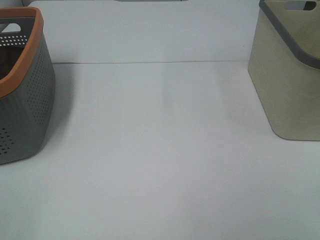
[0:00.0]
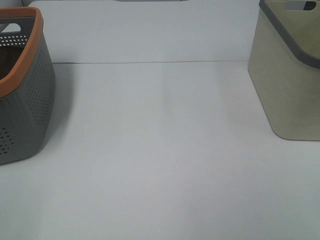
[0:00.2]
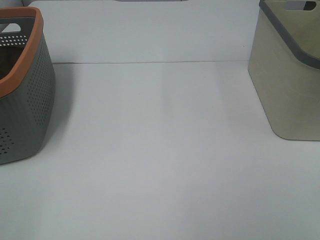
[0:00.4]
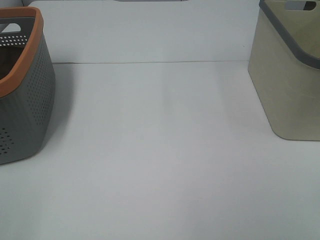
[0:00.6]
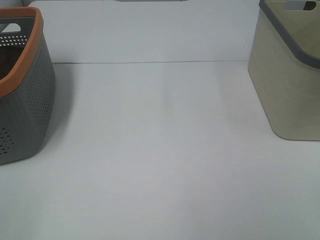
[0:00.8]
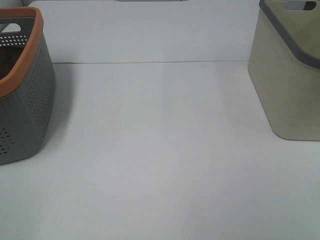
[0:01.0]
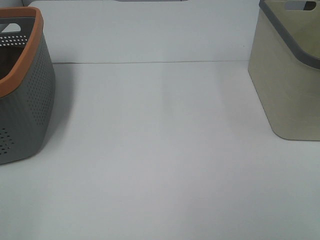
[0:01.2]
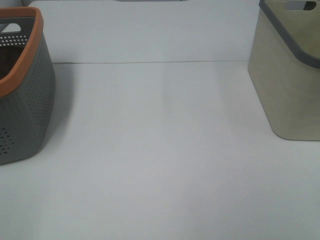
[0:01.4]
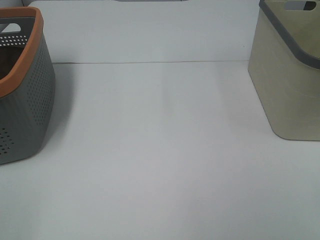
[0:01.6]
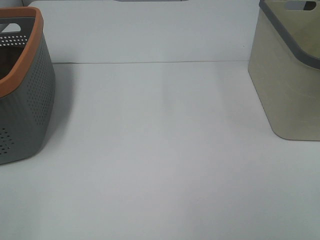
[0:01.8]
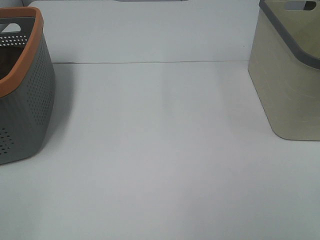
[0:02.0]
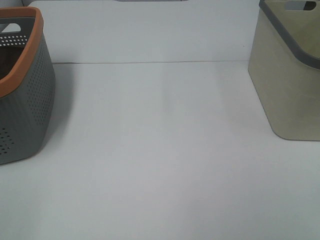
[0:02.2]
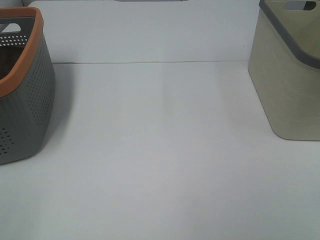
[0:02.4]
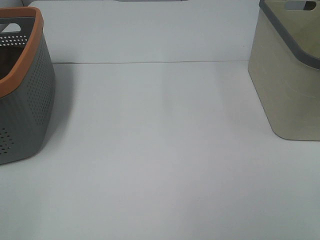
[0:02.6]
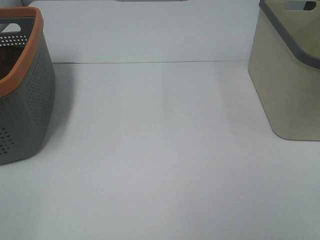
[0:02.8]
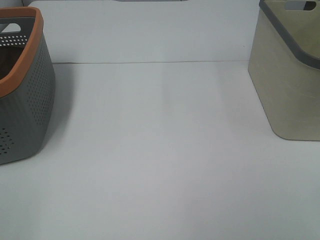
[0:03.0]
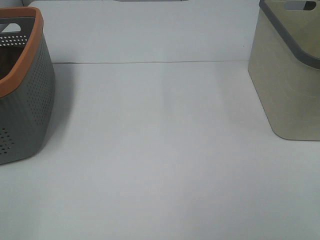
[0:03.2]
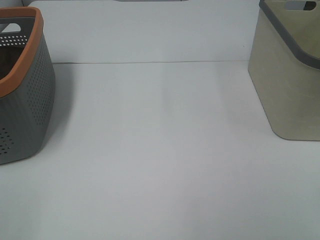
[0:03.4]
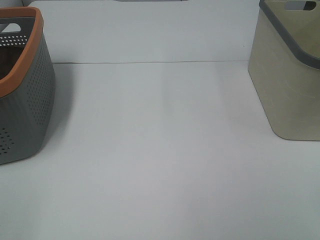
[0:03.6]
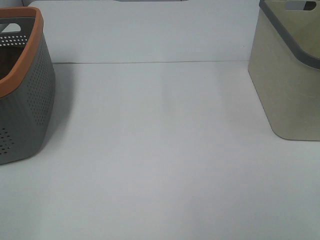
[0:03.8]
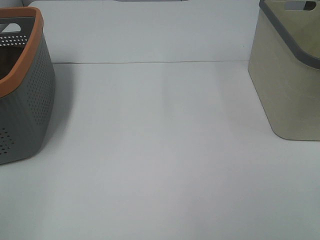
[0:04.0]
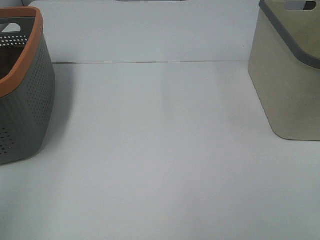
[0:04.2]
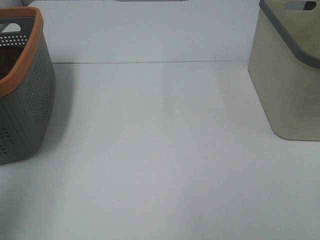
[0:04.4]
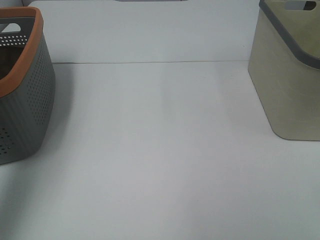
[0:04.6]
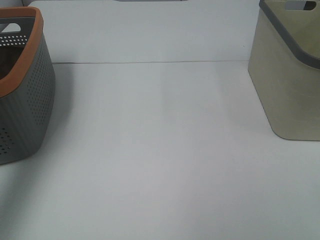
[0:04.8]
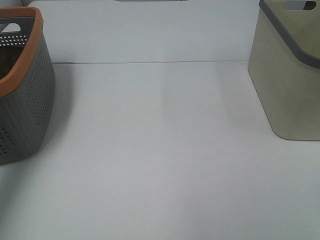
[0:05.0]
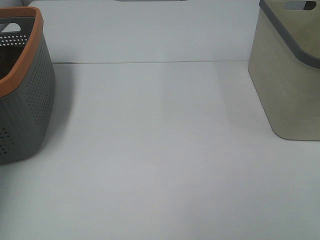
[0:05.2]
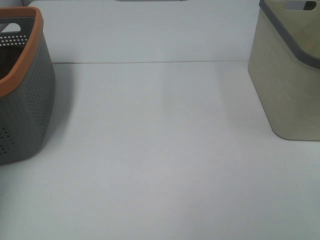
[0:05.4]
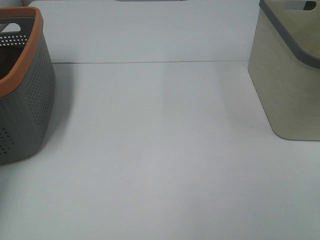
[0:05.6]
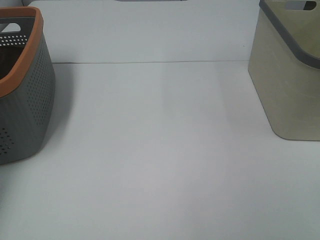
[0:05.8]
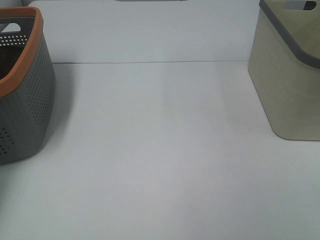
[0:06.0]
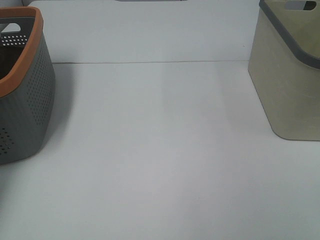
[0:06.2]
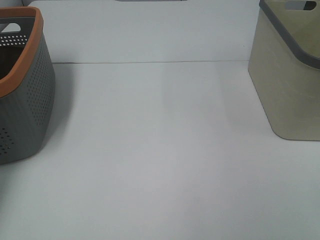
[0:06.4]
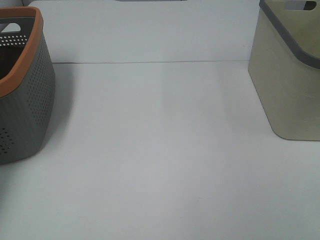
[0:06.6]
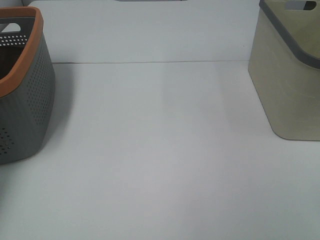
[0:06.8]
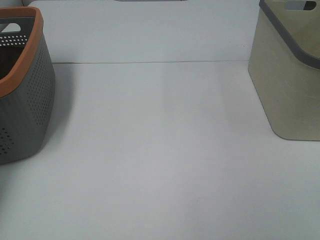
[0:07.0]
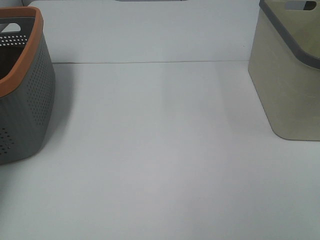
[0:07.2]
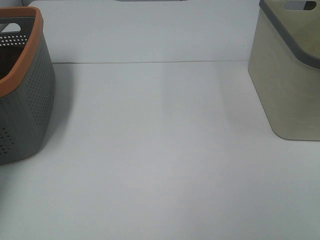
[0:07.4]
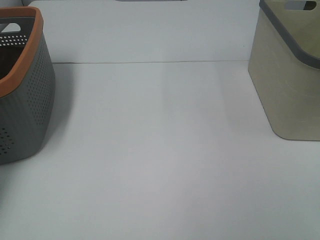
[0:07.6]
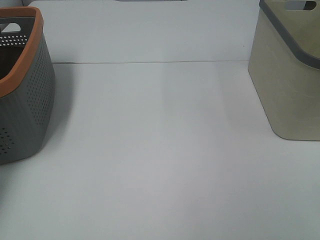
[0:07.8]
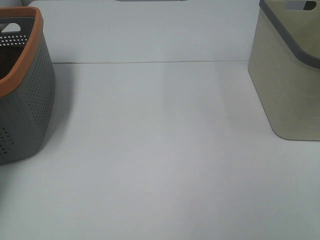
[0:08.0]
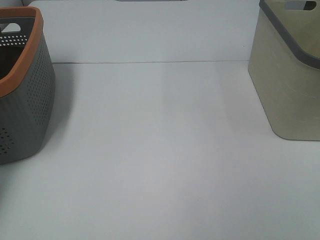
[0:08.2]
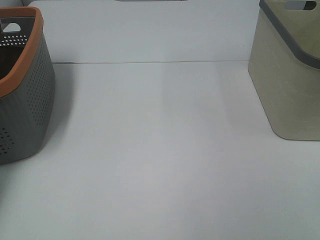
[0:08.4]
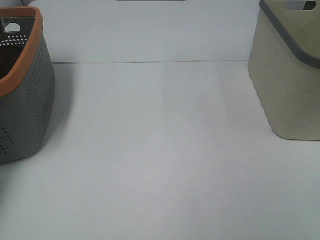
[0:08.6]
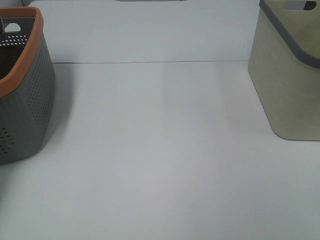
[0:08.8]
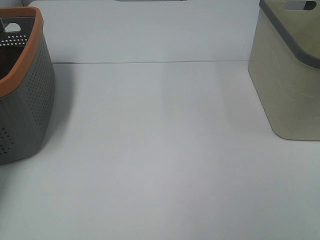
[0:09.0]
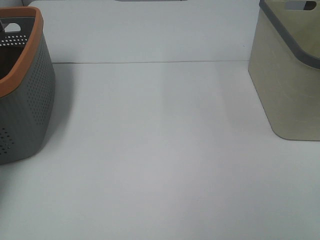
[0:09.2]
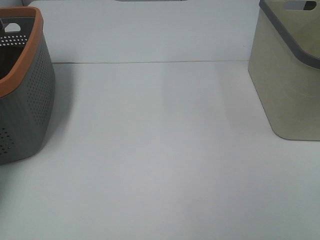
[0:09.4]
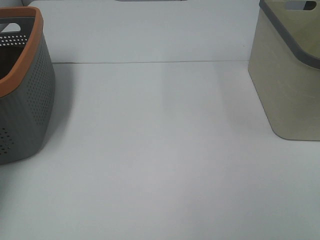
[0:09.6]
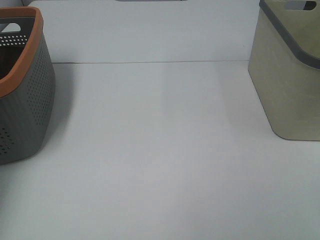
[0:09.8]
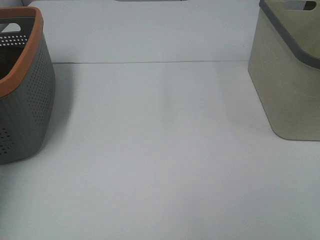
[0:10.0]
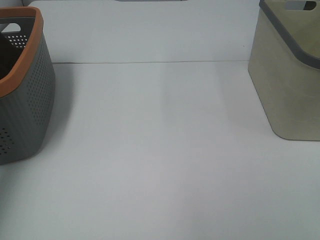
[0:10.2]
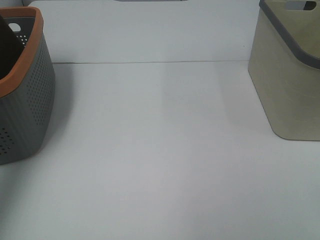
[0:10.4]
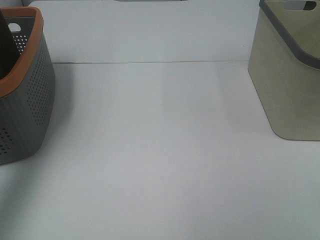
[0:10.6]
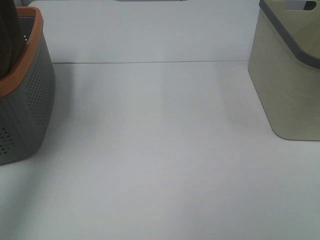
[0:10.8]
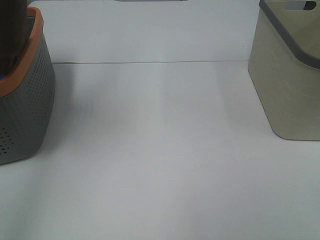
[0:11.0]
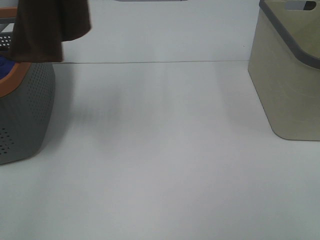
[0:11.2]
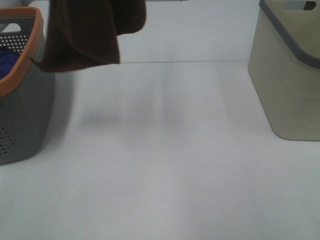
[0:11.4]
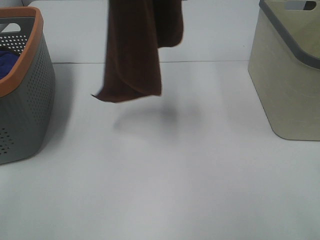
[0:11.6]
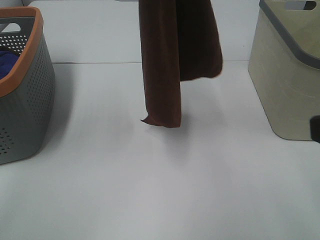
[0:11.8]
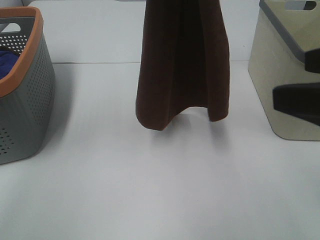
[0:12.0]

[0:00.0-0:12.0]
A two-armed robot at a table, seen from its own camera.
Task of the whole recording: Remove the towel and place it.
0:00.0 to 0:03.0: Both grippers stay put.
0:03.0 to 0:04.4: The left gripper goes some 20 cm forward and upward.
0:04.4 to 0:06.0: The left gripper heads forward and downward, covering some 35 cm.
0:09.0 to 0:10.4: The left gripper travels upward and backward by some 35 cm.
0:10.4 to 0:12.0: The right gripper travels forward by some 15 cm. Meanwhile the left gripper heads to the right, covering about 30 cm.

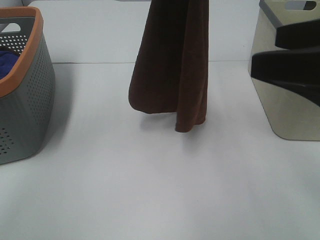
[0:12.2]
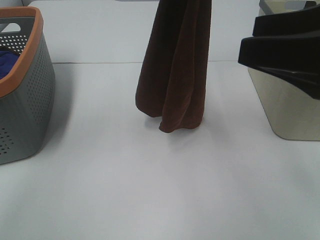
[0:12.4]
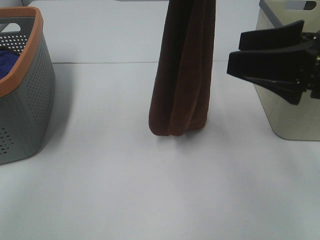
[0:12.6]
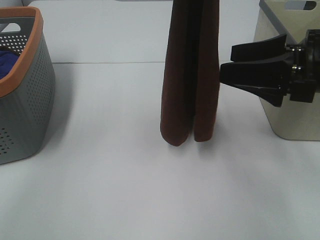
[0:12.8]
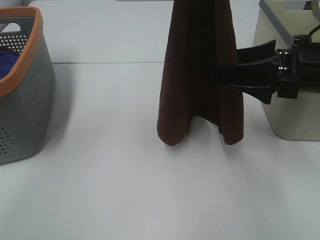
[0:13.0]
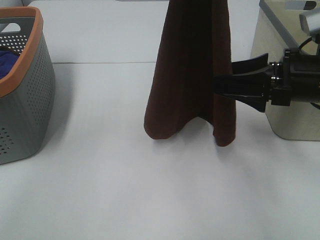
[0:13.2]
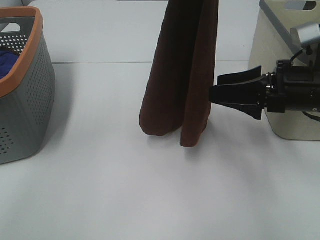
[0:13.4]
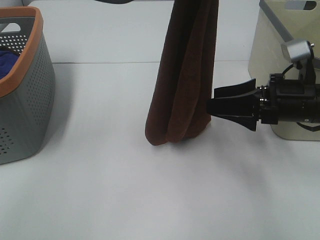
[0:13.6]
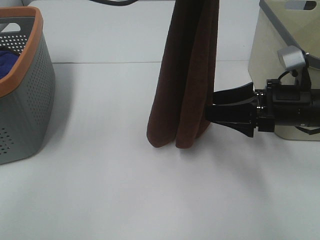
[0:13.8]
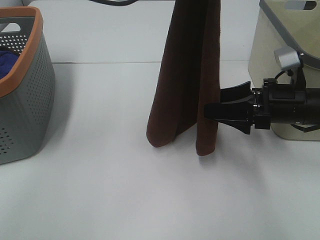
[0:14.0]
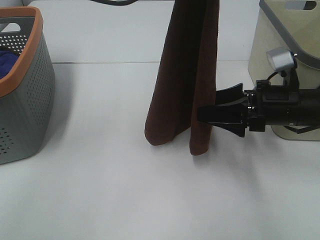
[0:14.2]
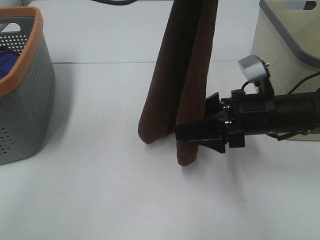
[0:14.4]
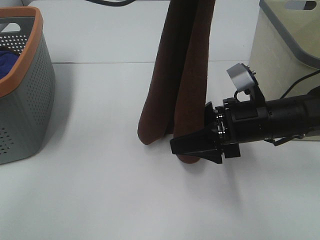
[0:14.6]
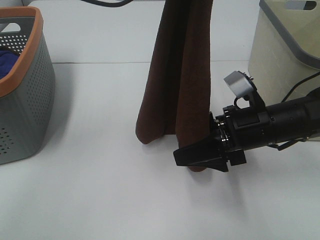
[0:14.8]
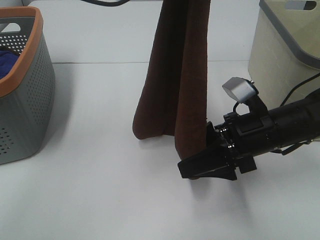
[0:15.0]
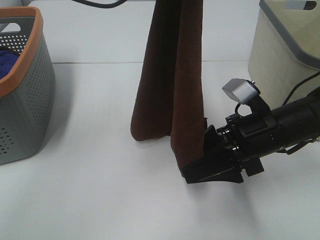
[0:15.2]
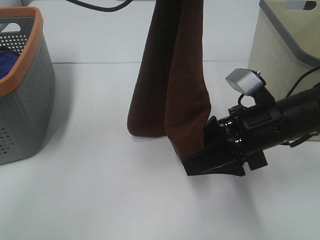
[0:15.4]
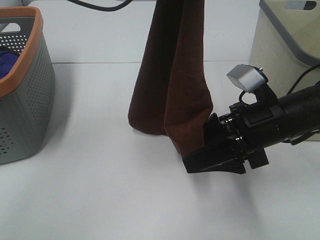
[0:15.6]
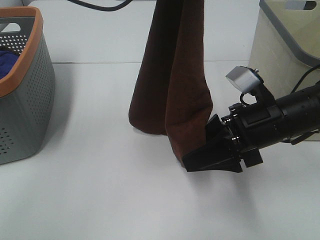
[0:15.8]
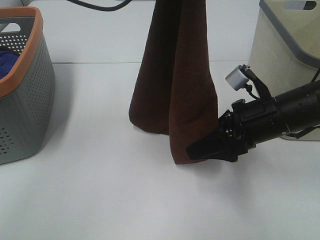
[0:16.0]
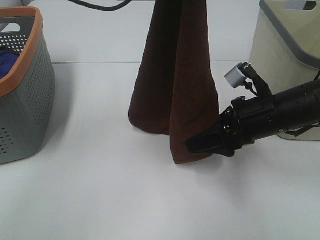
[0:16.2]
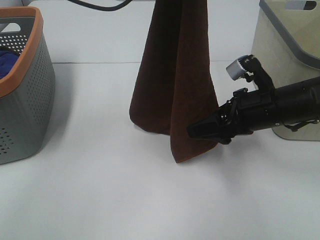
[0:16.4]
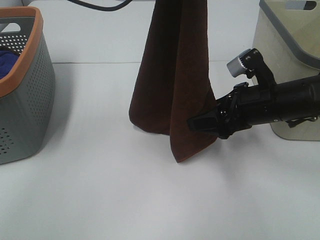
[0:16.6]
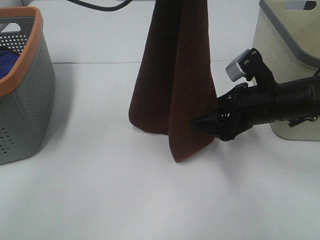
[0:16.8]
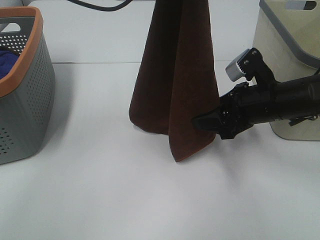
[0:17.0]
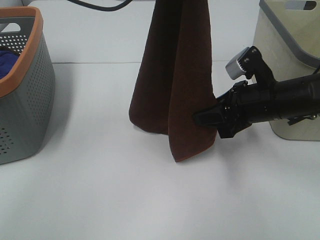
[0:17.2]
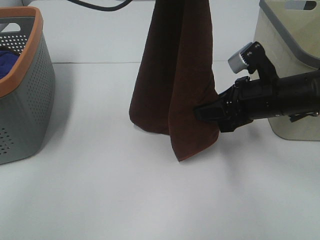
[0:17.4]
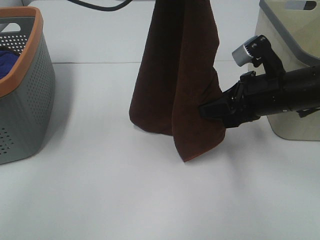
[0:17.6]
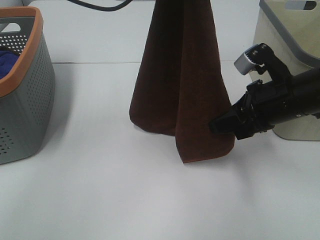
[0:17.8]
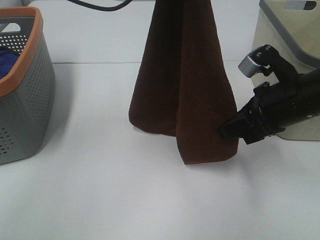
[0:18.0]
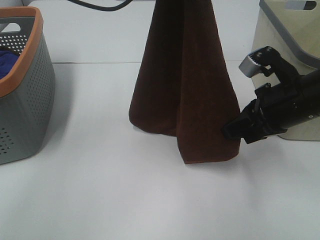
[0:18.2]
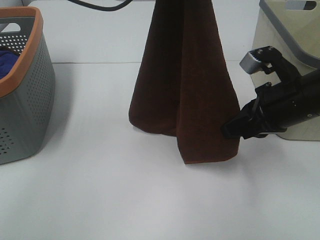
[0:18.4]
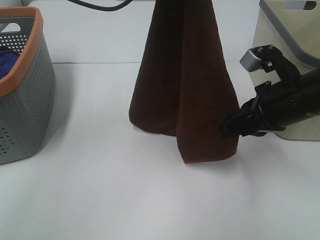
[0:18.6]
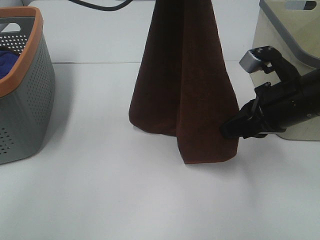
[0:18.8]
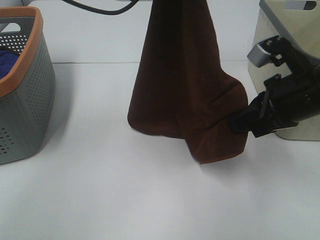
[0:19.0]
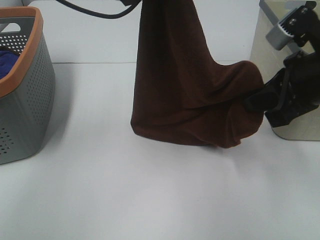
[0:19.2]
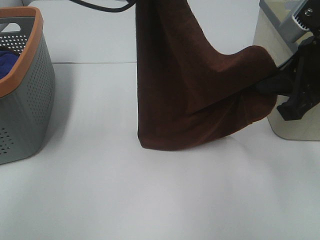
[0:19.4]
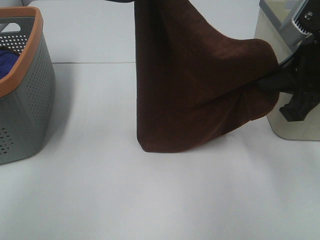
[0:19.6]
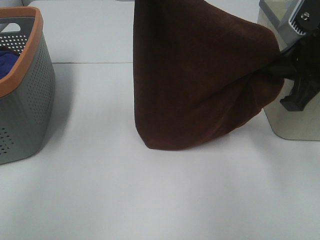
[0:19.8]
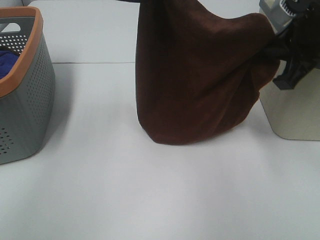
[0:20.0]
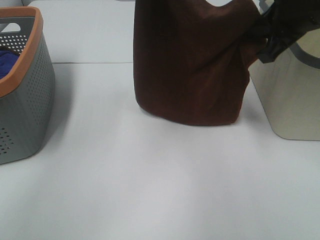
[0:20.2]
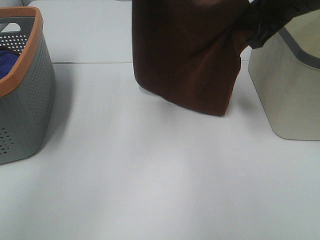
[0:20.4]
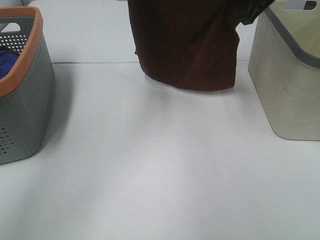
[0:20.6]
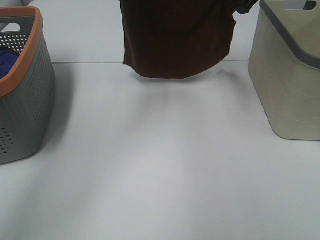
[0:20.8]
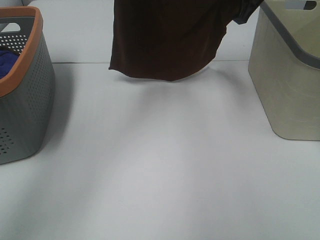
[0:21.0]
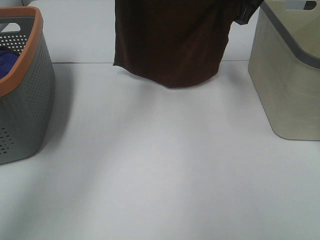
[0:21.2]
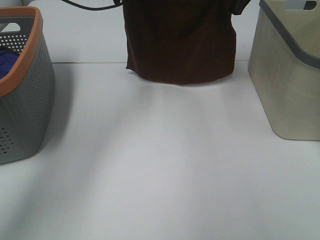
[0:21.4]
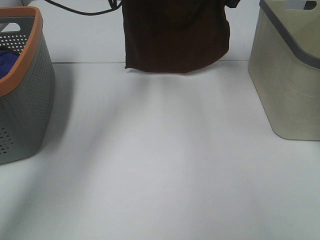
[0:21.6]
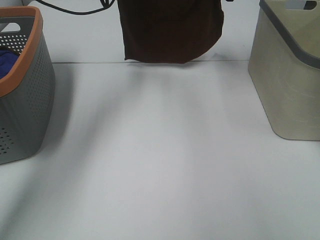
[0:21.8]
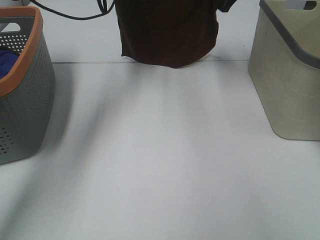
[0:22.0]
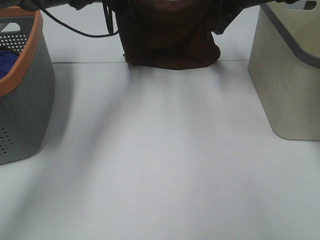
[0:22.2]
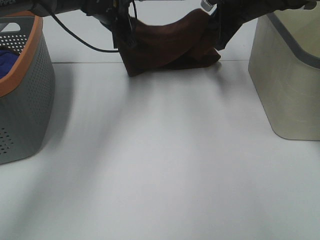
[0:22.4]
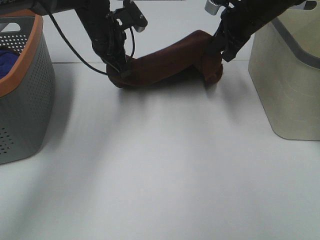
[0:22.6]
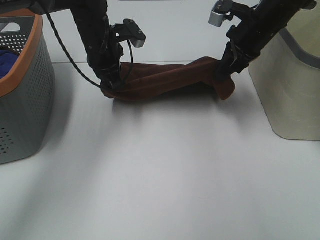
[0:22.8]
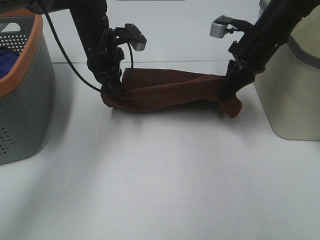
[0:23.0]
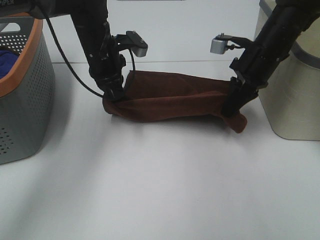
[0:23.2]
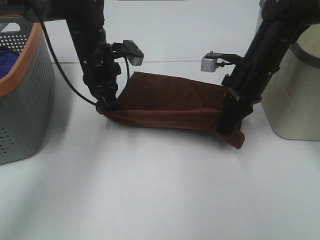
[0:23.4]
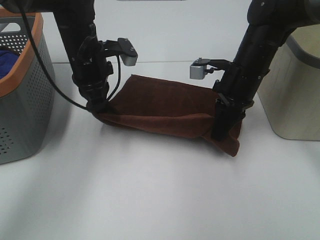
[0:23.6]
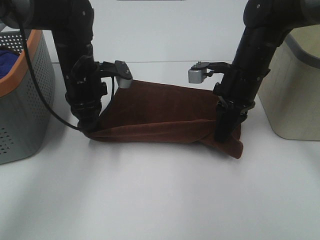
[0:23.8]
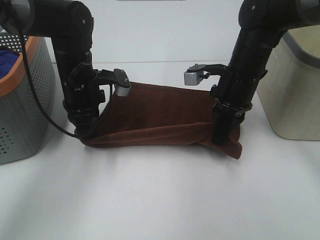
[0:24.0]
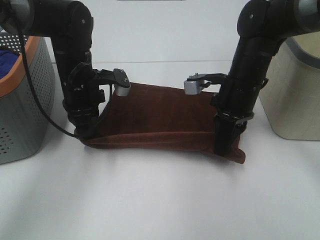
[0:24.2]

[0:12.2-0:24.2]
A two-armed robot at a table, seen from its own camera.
Task of the whole recording: Remove the towel and place it.
Step, 0:12.2 to 0:16.2: Right hand: grab a corner of the brown towel and straighten it.
Step, 0:16.4 to 0:19.8: Left hand: spread the brown towel flat on the table.
Step, 0:16.4 to 0:19.8: Right hand: spread the brown towel flat on the table.
0:12.2 to 0:13.8: The right gripper goes about 20 cm downward and forward.
0:13.8 to 0:15.2: The right gripper travels to the left by some 5 cm.
0:16.6 to 0:18.2: The right gripper changes place by roughly 5 cm, and closes up.
0:18.2 to 0:19.8: The right gripper is displaced upward by roughly 10 cm.
0:19.8 to 0:21.2: The right gripper heads forward, covering about 20 cm. Meanwhile the left gripper shifts roughly 15 cm forward and to the left.
0:21.2 to 0:22.6: The right gripper shifts about 5 cm downward. The left gripper is displaced downward by about 15 cm.
0:22.6 to 0:24.2: The right gripper shifts about 15 cm backward and downward, while the left gripper shifts roughly 10 cm backward.
